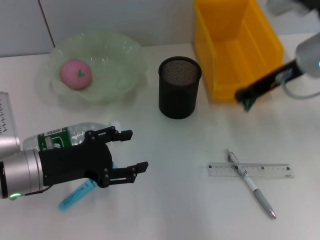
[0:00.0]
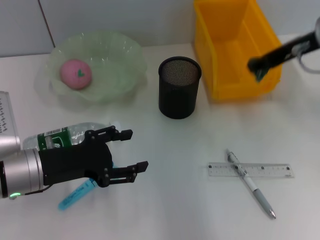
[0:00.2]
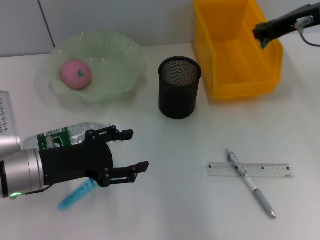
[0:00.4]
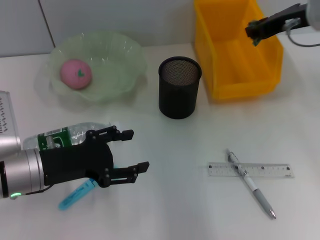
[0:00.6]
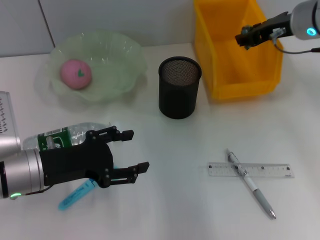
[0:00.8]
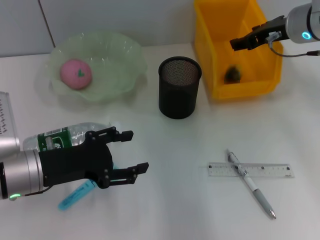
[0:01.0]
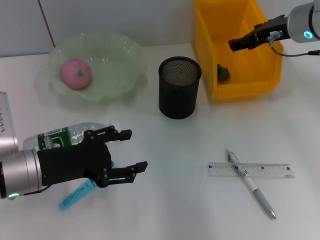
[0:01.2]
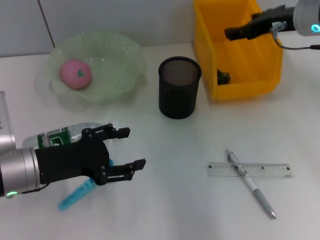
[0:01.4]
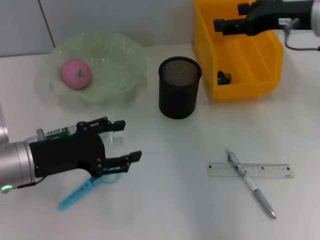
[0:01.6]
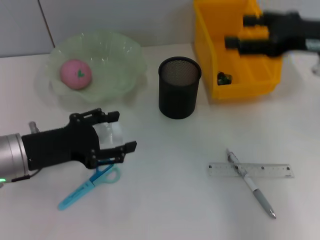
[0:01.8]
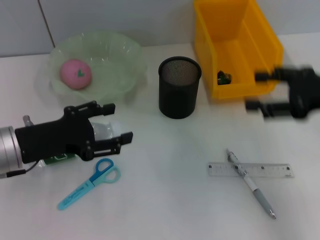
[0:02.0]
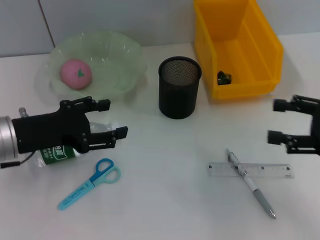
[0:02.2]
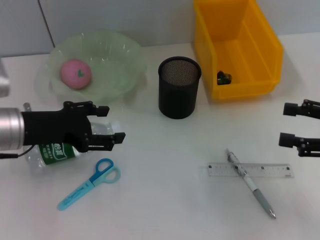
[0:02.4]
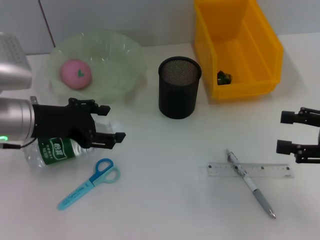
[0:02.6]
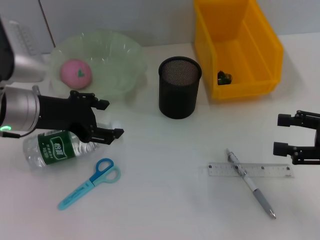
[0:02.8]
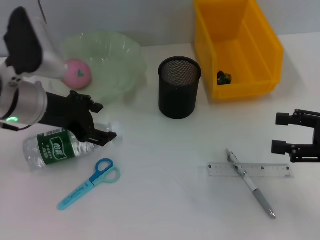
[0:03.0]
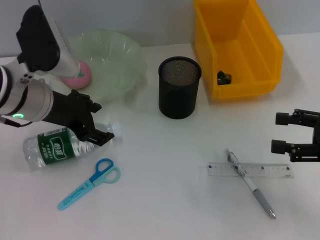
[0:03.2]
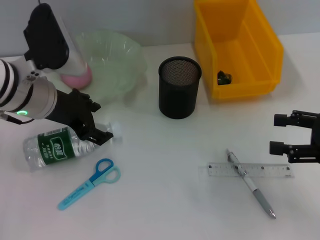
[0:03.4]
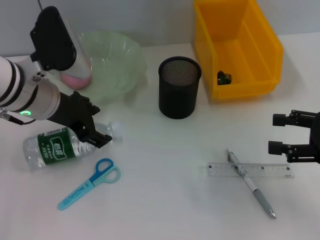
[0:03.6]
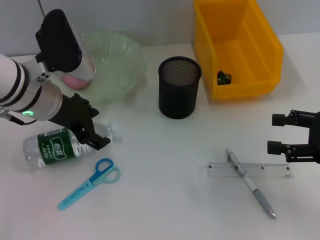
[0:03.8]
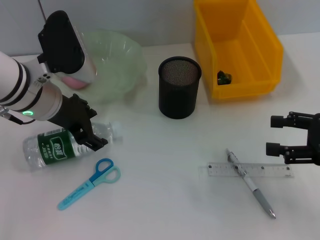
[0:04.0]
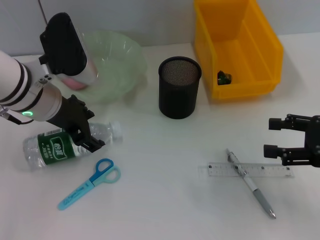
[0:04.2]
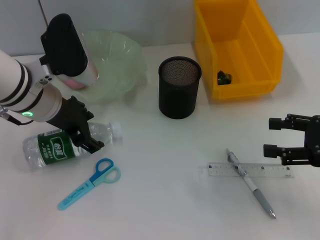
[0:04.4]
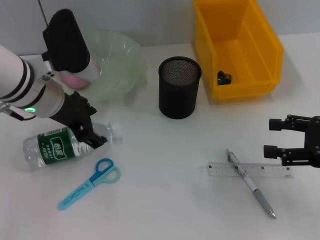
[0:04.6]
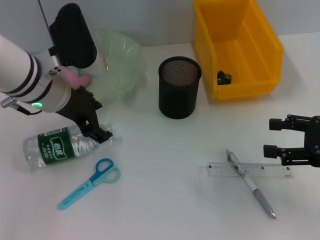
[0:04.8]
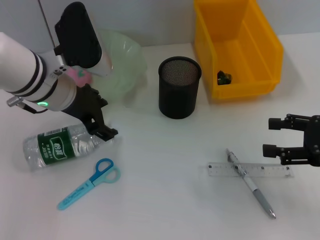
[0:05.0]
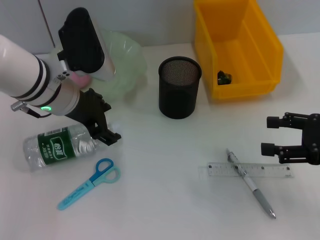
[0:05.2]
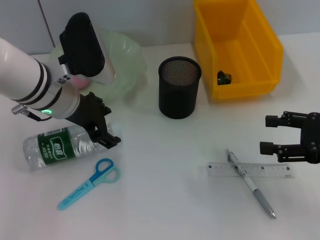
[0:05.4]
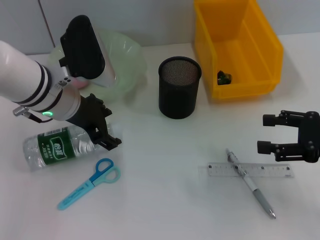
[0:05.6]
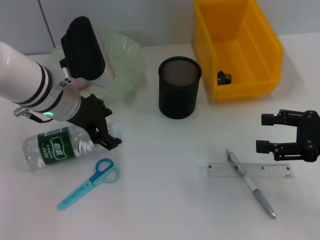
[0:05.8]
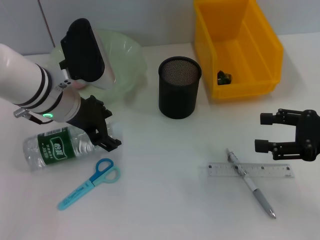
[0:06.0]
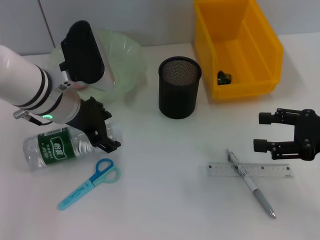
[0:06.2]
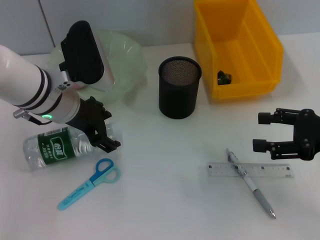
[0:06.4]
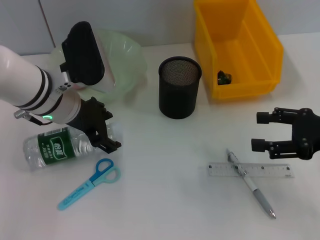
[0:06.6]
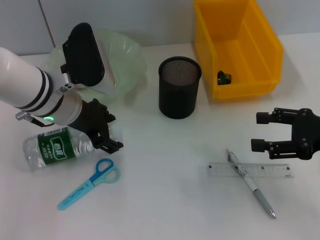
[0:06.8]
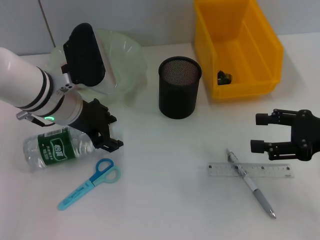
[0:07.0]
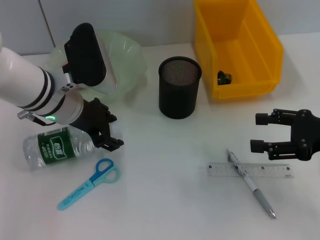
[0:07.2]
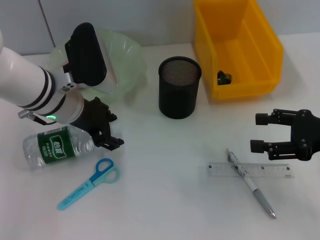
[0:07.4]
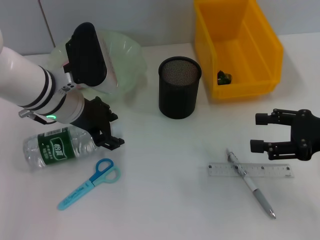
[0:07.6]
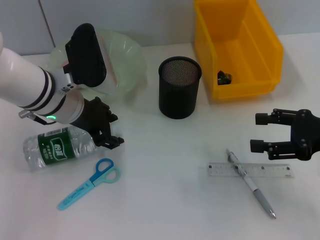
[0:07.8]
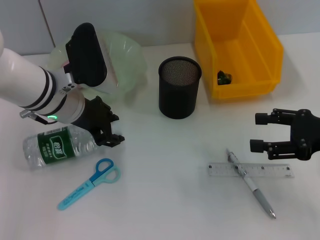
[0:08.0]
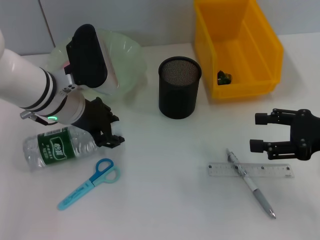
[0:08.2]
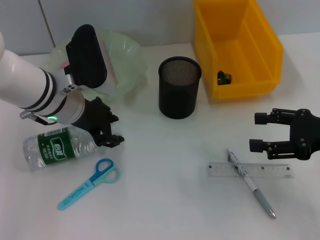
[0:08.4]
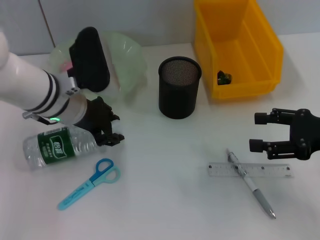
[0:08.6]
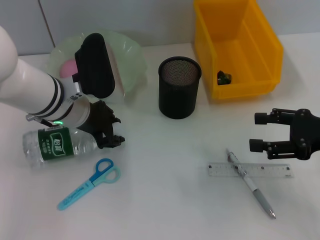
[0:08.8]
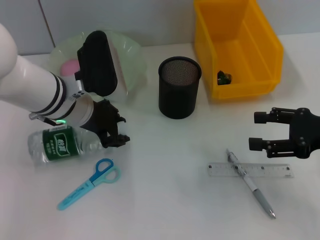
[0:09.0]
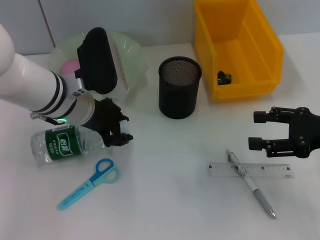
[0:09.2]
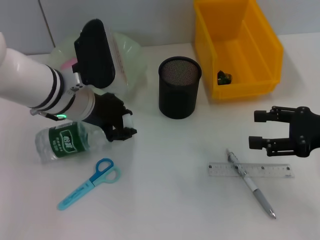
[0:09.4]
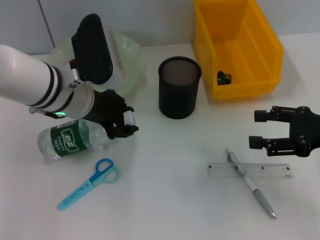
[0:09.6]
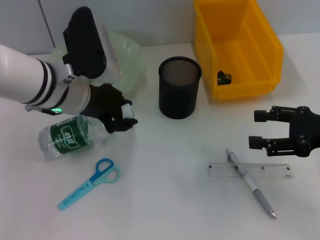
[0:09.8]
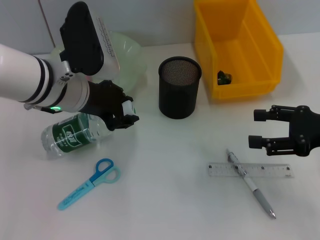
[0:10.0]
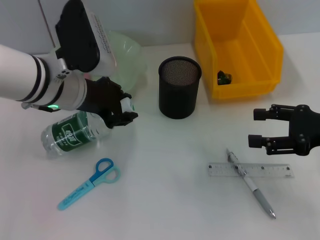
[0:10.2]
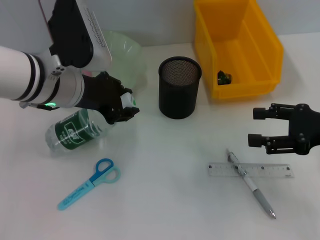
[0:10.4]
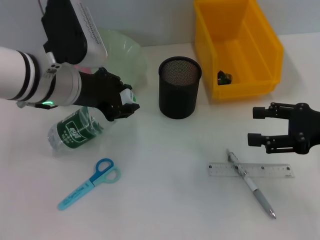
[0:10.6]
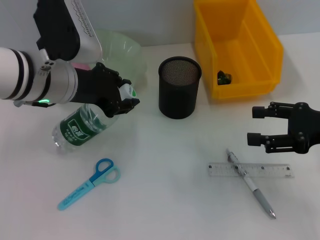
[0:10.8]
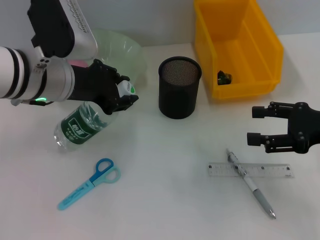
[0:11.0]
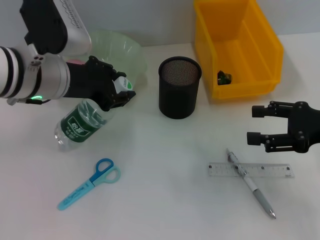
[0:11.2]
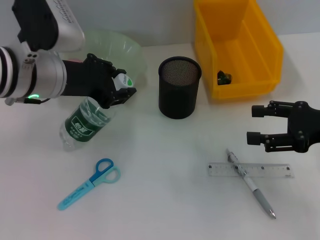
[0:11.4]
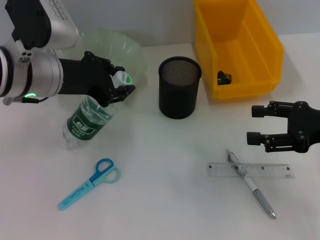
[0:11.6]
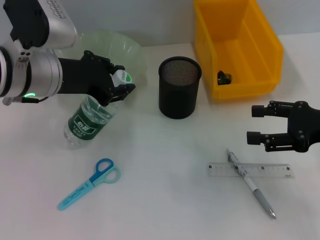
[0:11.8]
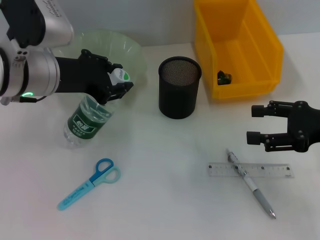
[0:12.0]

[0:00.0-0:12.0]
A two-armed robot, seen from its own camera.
Step, 0:00.0 to 0:01.4: Place the plastic into the trash can with the right hand.
Step, 0:01.8 to 0:09.0: Grab the water bottle with the left hand.
0:00.0 to 0:01.6: The right gripper opens up.
0:01.6 to 0:03.0: The right gripper moves backward, downward and to the right, some 20 cm, while the left gripper is displaced forward and upward by about 10 cm.
0:03.0 to 0:06.0: The grippers stay close to where they were, moving slightly.
0:06.0 to 0:07.6: Both grippers stay put.
0:07.6 to 0:10.4: The grippers make only small movements.
0:10.4 to 0:12.0: The grippers make only small movements.

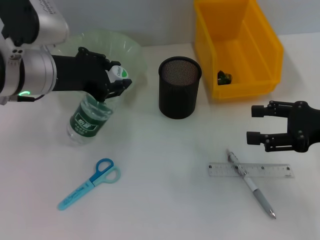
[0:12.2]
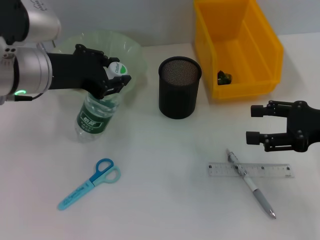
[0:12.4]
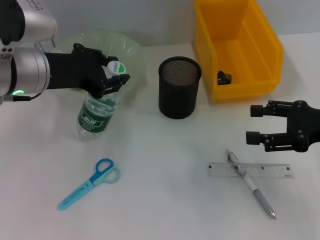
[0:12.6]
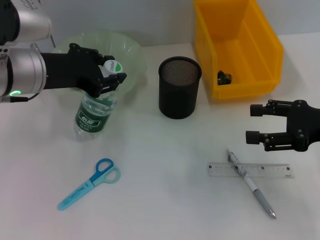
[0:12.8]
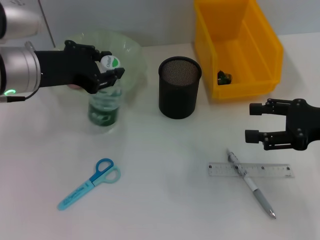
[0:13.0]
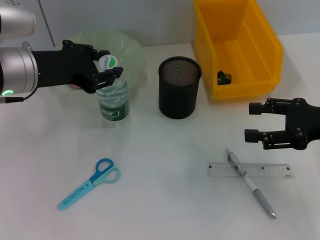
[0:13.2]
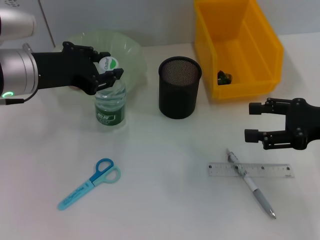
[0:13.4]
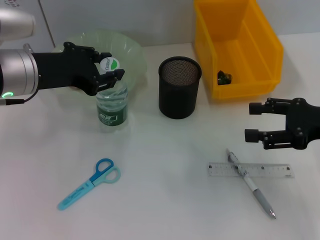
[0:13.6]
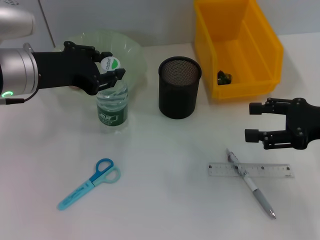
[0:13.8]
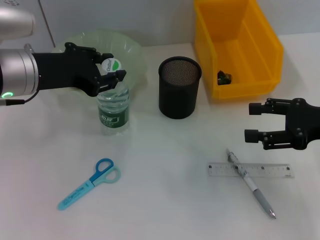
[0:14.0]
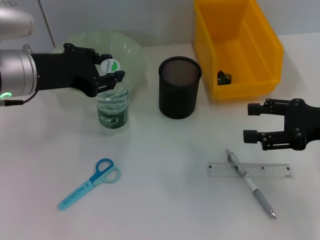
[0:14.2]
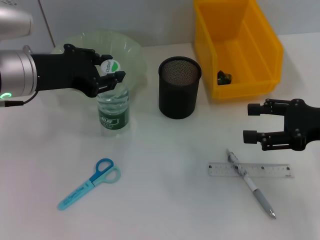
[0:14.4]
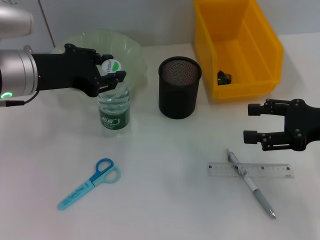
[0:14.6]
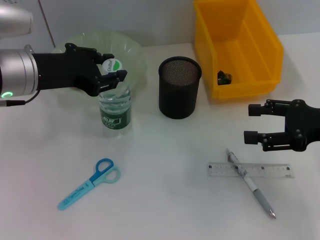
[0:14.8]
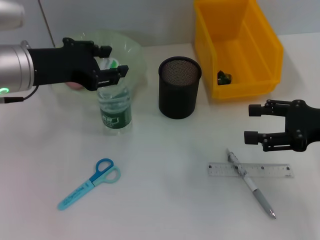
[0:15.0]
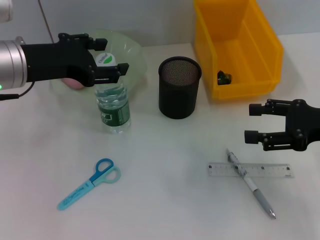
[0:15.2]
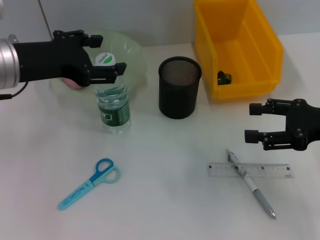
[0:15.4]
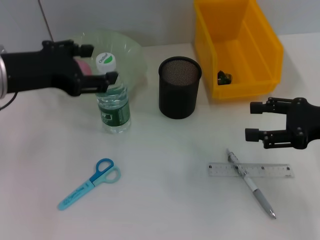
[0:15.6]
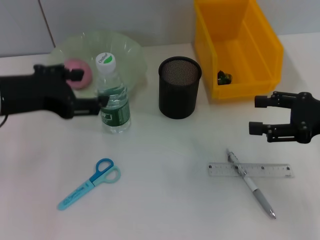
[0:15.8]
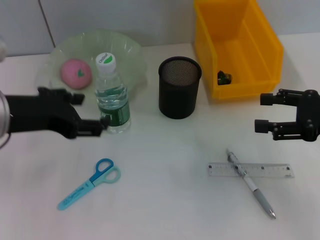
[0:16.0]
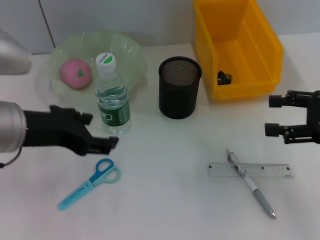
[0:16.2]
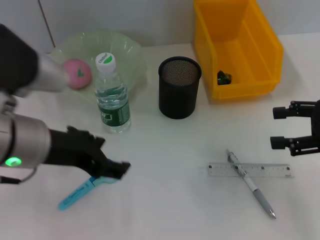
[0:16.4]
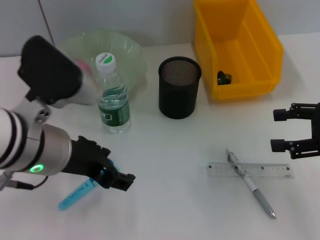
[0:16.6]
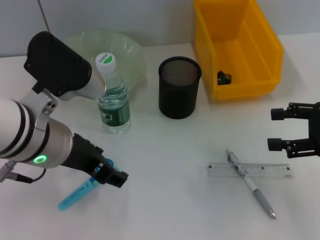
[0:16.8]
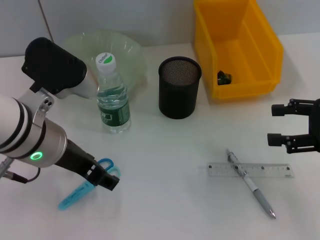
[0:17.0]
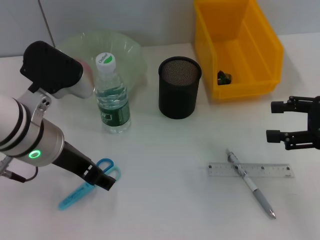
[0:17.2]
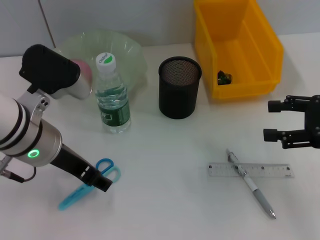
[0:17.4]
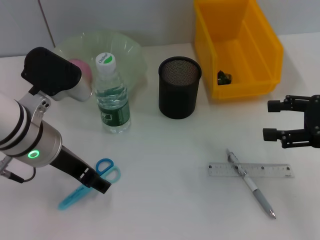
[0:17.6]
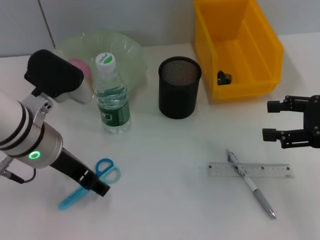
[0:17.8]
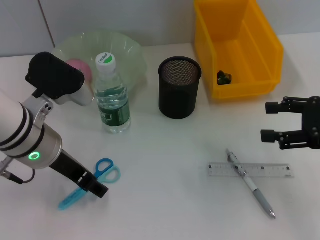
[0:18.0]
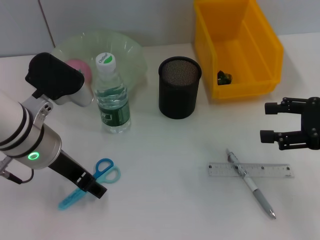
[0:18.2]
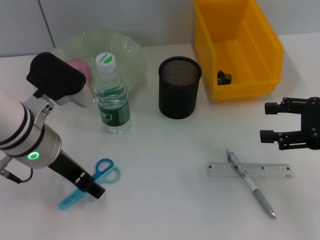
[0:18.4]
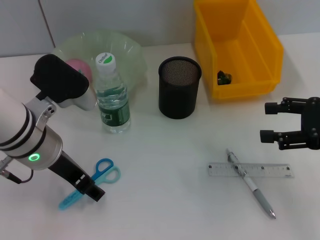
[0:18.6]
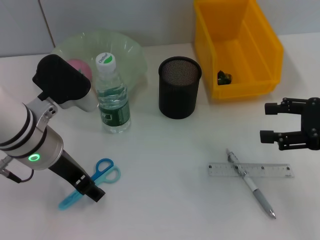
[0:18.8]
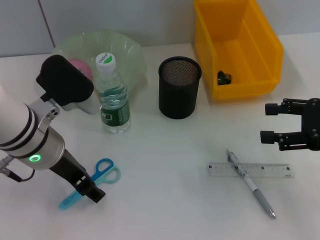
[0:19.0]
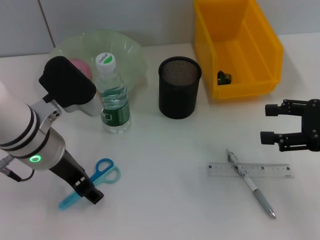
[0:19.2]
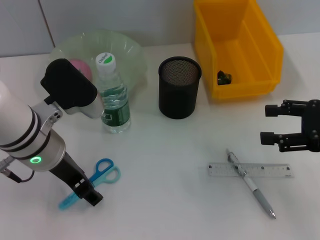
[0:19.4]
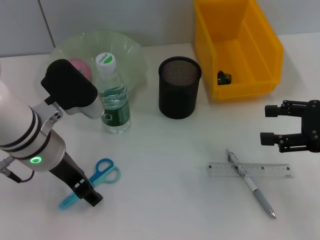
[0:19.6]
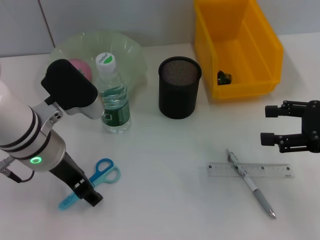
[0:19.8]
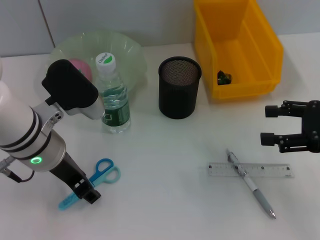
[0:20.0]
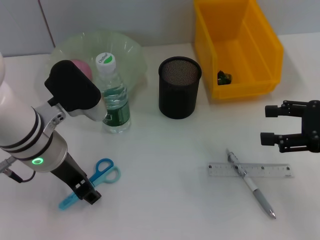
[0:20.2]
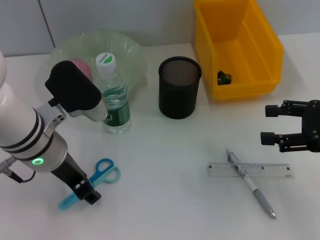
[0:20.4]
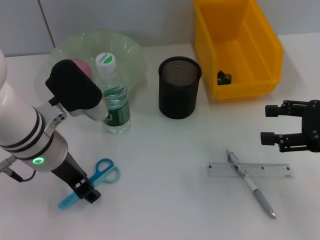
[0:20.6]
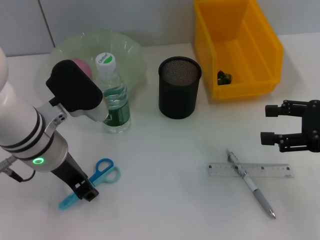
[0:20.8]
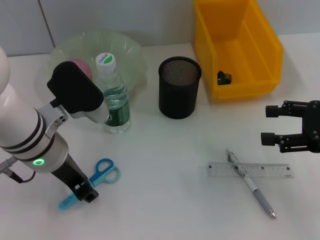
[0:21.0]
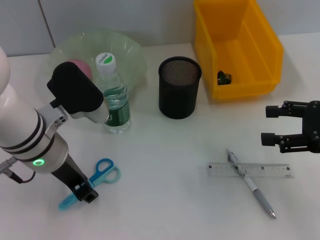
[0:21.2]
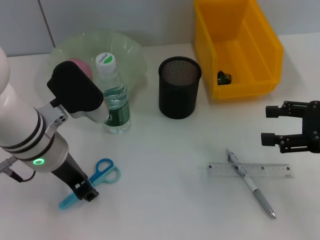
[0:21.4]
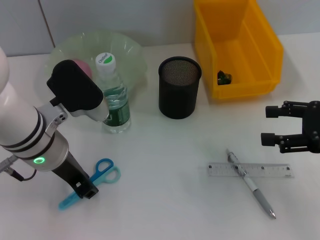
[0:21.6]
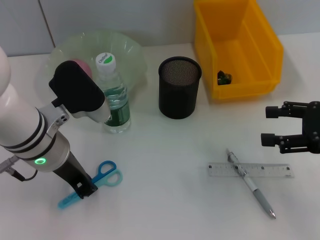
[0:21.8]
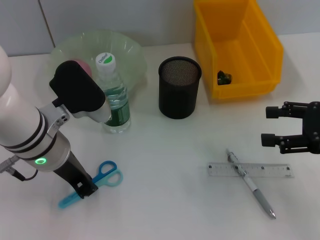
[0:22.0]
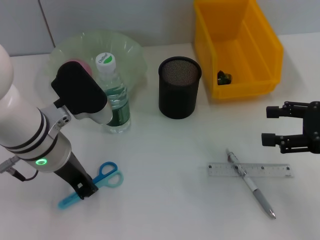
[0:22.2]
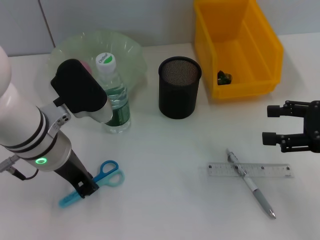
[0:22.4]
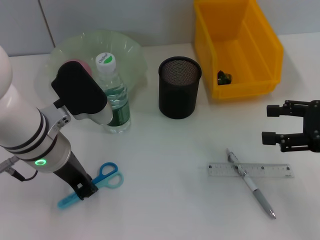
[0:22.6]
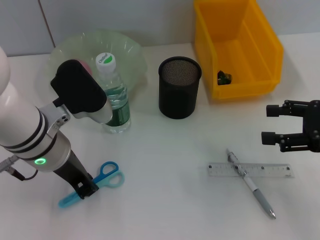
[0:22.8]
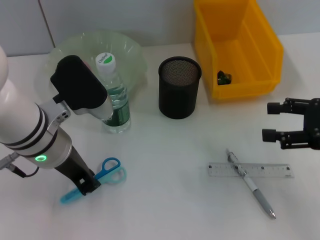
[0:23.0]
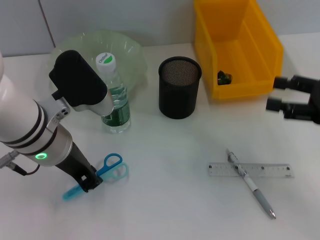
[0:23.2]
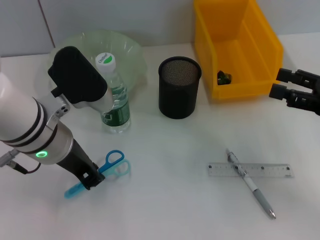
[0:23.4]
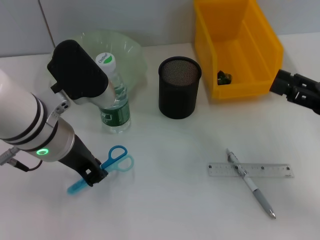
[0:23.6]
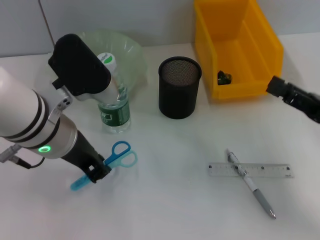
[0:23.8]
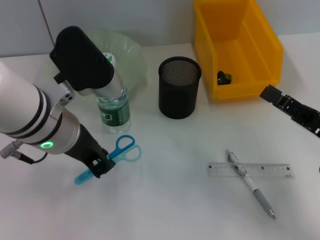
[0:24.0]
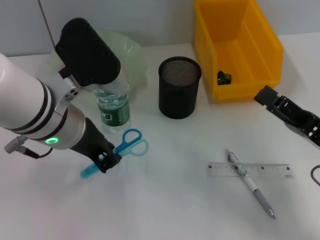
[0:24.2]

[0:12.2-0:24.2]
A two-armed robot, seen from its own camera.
Step, 0:12.2 to 0:15.2: Place the water bottle on the table with the left hand.
0:12.2 to 0:15.2: The grippers make only small movements.
0:15.2 to 0:16.6: The left gripper shifts approximately 10 cm backward and to the right, and opens up.
0:16.6 to 0:18.2: The left gripper changes place by about 5 cm.
0:18.2 to 0:19.8: There are only small adjustments of the grippers.
0:19.8 to 0:21.2: The left gripper closes.
0:21.2 to 0:22.6: The left gripper closes.
0:22.6 to 0:24.2: The left gripper goes roughly 5 cm upward; the right gripper is displaced downward, to the left and backward by roughly 10 cm.
